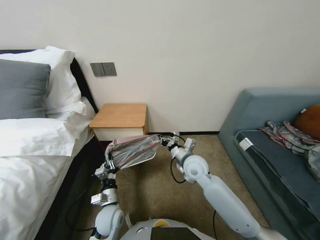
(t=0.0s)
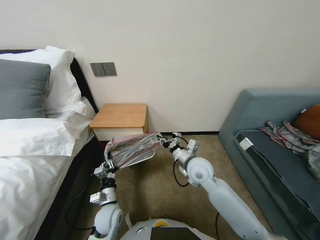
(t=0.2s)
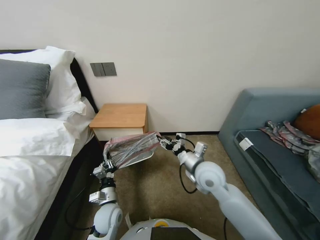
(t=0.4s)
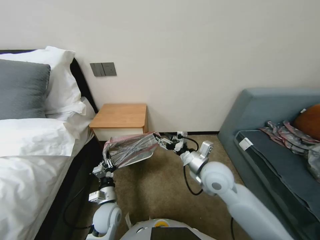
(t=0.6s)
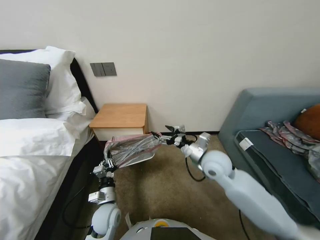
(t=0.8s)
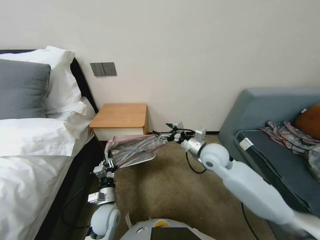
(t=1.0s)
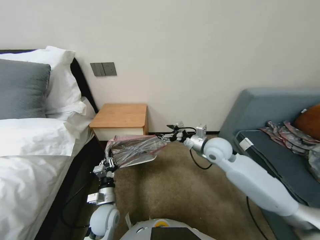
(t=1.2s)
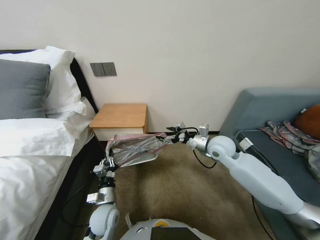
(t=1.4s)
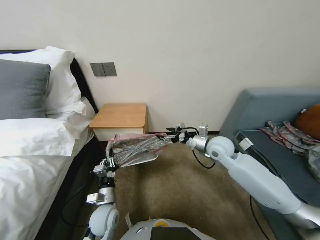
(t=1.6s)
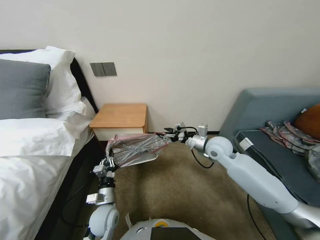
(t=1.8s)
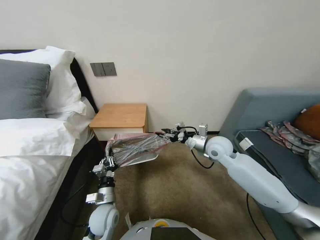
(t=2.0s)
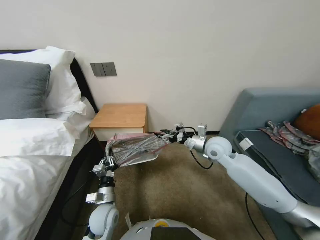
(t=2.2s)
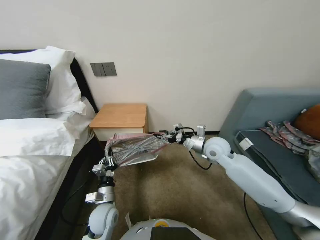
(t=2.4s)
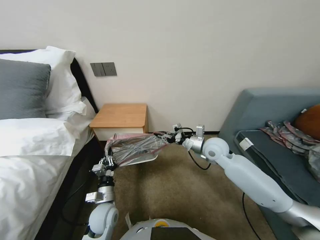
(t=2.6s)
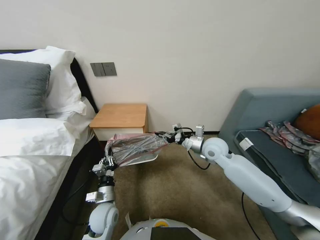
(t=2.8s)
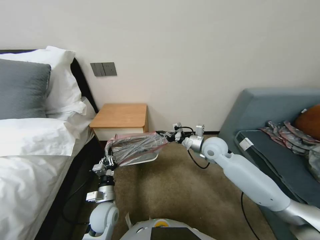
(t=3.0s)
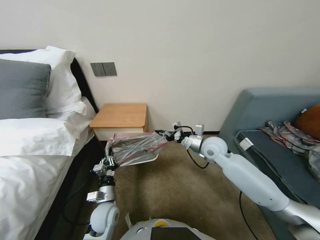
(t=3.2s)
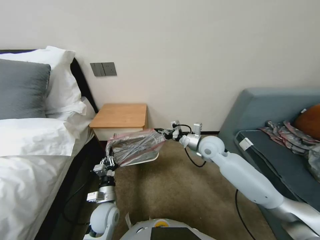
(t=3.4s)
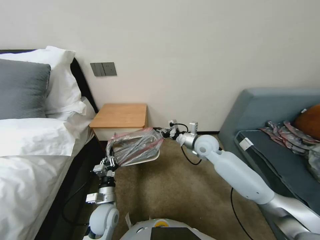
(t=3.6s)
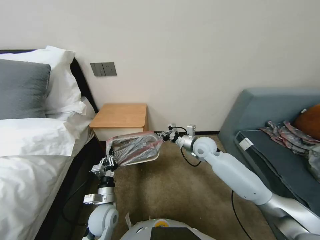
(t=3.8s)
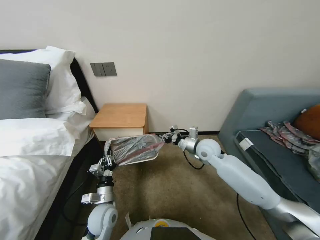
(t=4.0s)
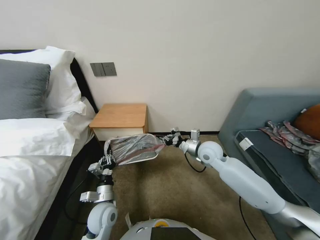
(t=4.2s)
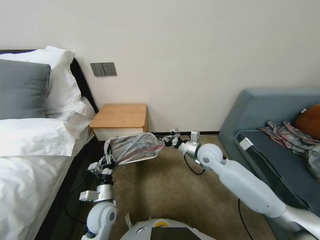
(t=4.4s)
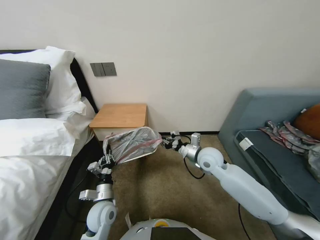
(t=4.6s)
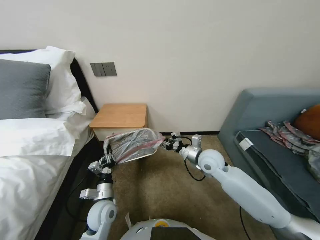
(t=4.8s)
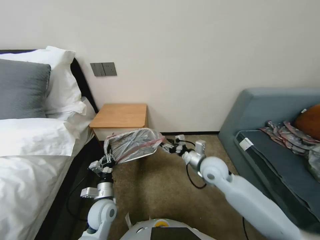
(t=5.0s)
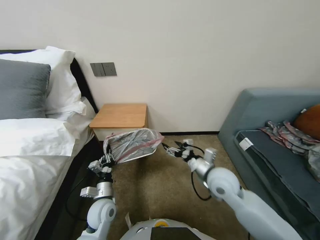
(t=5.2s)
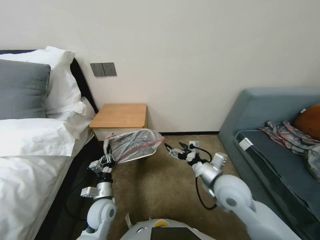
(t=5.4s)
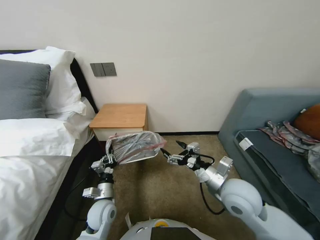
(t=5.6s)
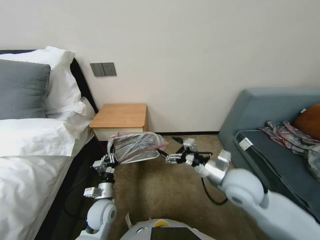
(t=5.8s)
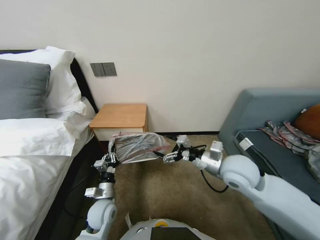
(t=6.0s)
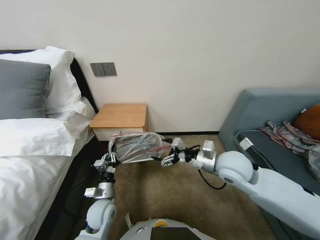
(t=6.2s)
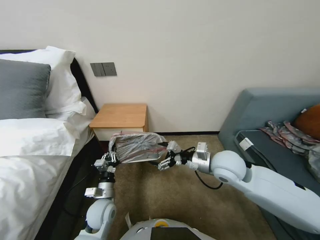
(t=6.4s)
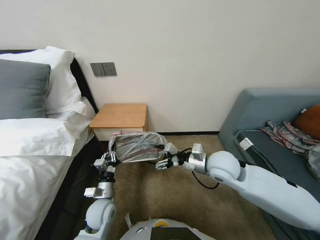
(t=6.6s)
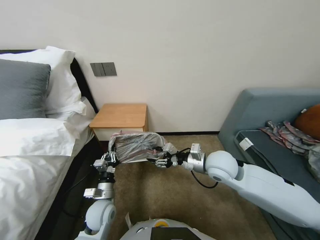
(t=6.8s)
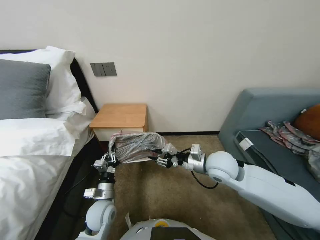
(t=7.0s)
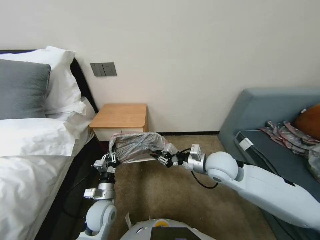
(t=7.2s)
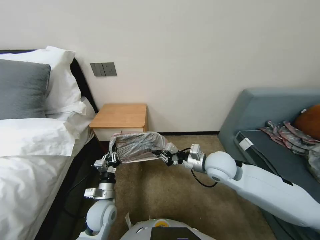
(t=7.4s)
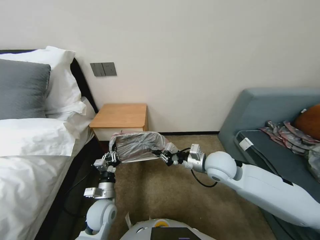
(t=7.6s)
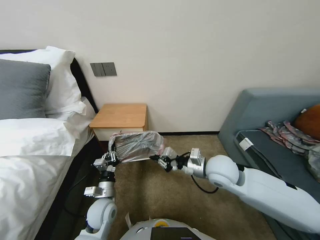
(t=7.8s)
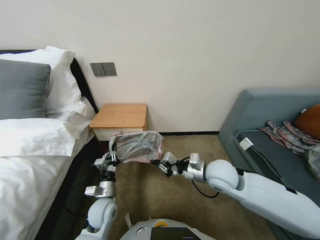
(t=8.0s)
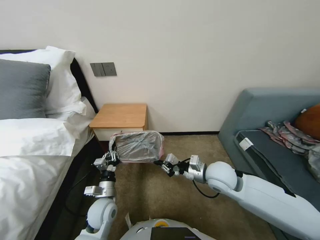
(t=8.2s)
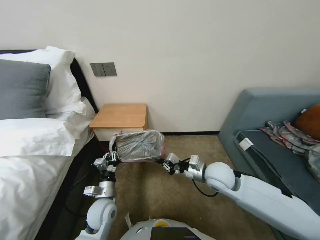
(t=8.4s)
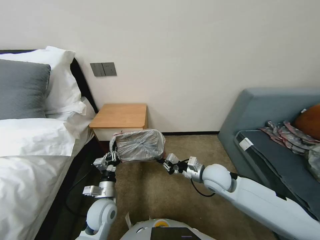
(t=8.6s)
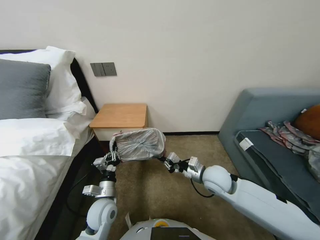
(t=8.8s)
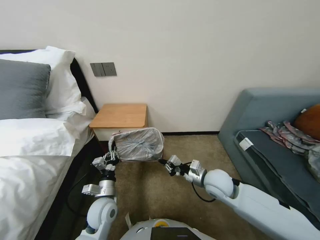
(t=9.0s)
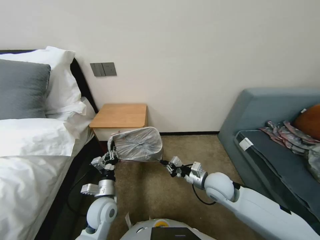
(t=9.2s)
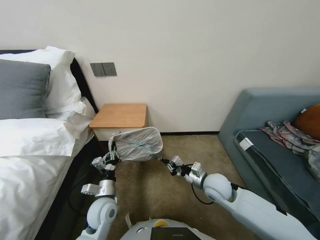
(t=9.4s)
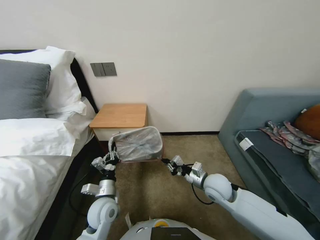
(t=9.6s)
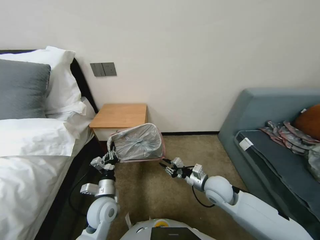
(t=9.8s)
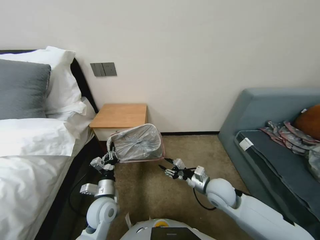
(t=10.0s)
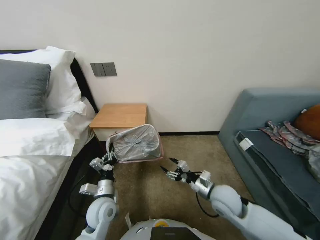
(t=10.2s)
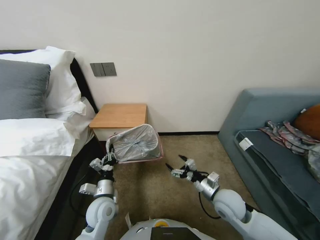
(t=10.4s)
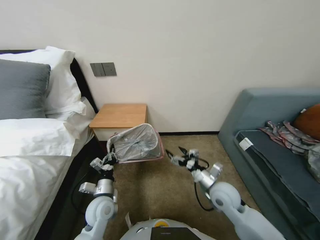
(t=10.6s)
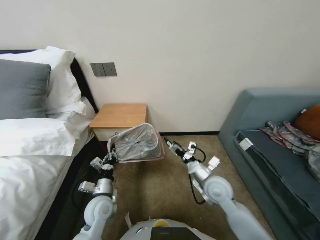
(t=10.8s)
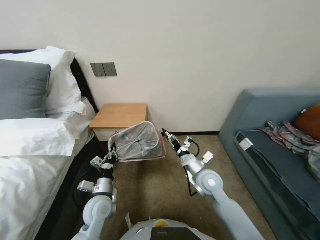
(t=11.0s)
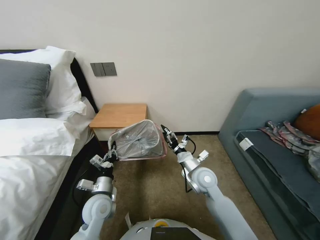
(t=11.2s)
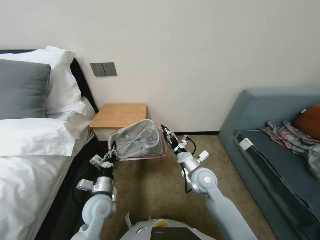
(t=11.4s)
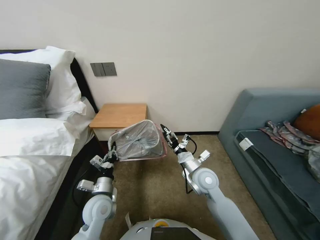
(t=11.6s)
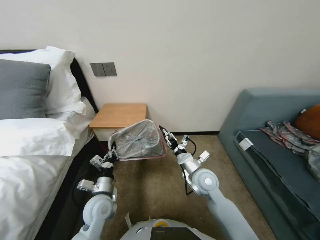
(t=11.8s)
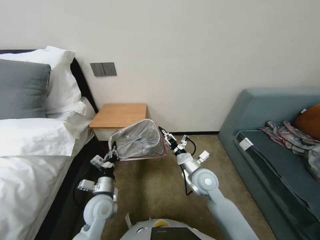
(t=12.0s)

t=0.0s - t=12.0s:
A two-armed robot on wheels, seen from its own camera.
Task of the whole recording: Pick up the garbage bag from the table and place it over the trash can.
t=0.0s - t=1.6s: The right gripper goes about 15 cm to the right, upward and forward, and opens its fingers.
t=1.6s - t=3.0s: The right gripper closes its fingers.
t=3.0s - t=4.4s: The grippers move only a little.
t=4.4s - t=6.0s: The right gripper heads backward and upward, covering approximately 15 cm, and opens its fingers.
t=6.0s - t=7.6s: The right gripper moves roughly 5 cm, and closes up.
t=7.6s - t=9.0s: The right gripper travels downward by about 5 cm.
t=9.0s - t=10.4s: The right gripper moves backward, approximately 5 cm, and opens up.
t=10.4s - t=12.0s: The right gripper travels forward and to the left by roughly 10 cm.

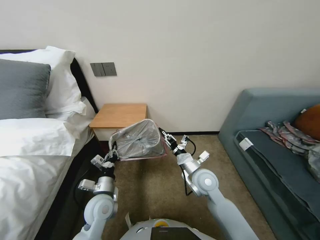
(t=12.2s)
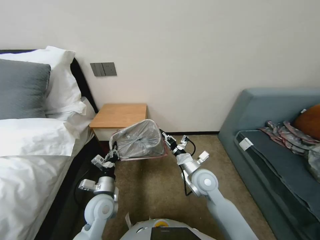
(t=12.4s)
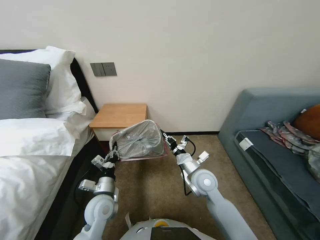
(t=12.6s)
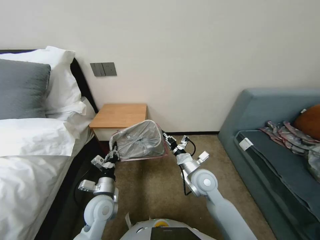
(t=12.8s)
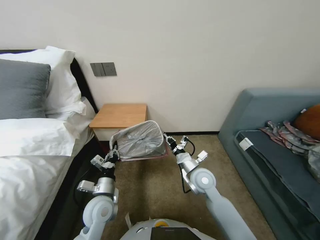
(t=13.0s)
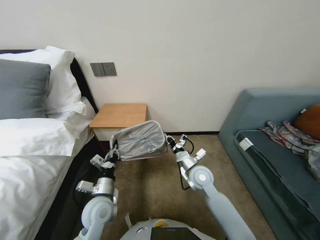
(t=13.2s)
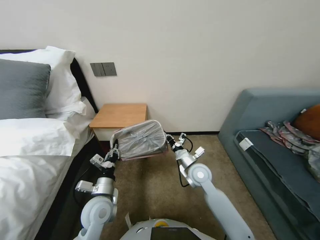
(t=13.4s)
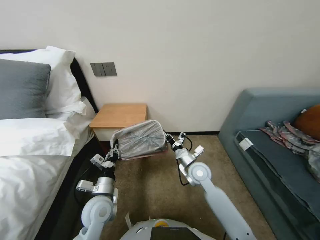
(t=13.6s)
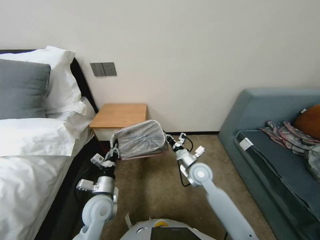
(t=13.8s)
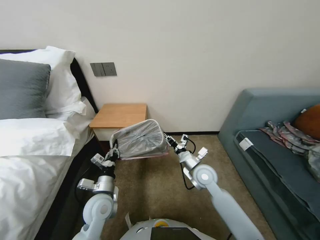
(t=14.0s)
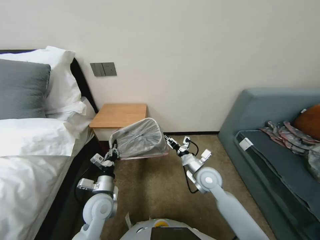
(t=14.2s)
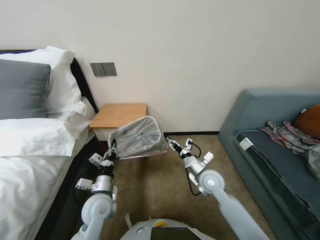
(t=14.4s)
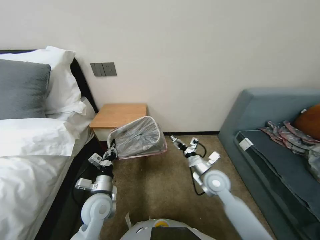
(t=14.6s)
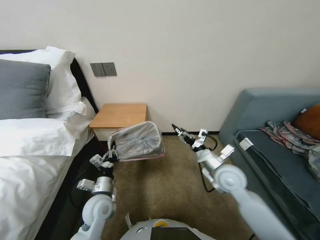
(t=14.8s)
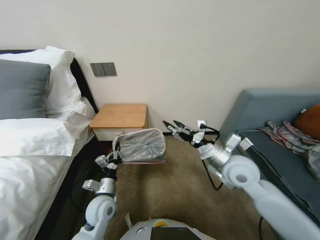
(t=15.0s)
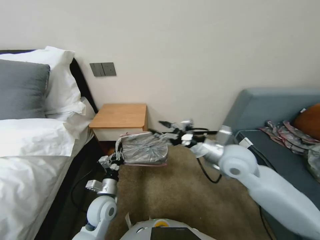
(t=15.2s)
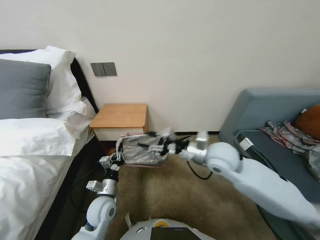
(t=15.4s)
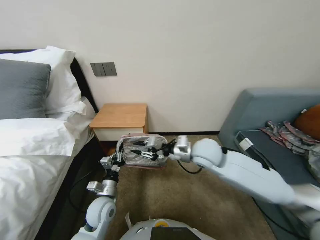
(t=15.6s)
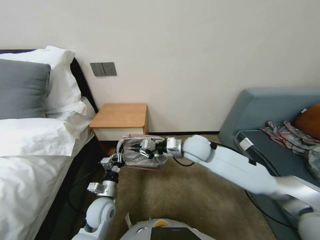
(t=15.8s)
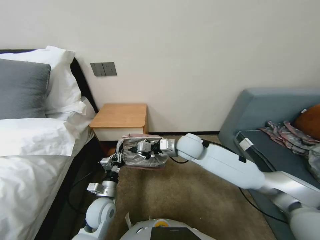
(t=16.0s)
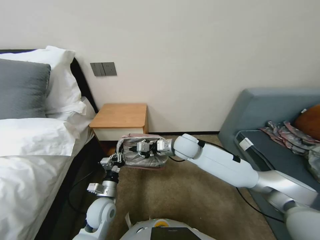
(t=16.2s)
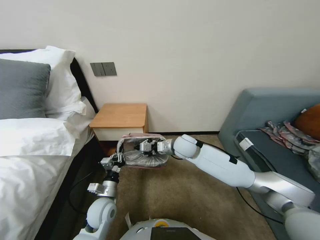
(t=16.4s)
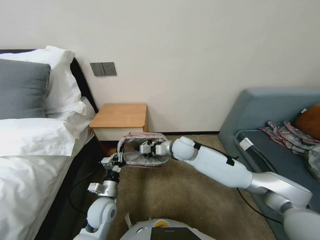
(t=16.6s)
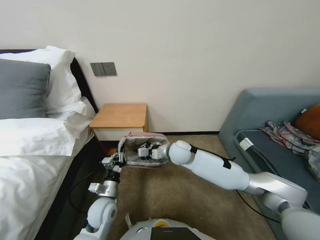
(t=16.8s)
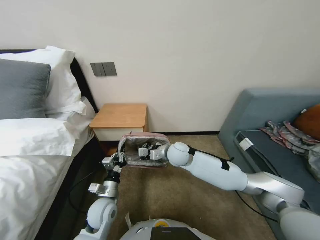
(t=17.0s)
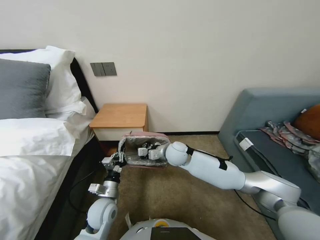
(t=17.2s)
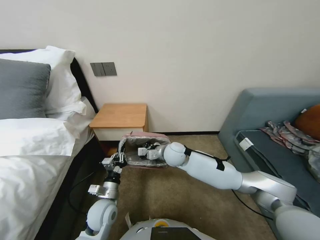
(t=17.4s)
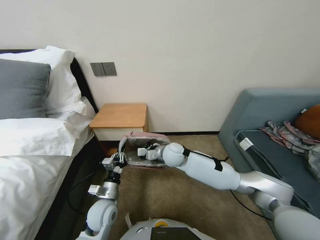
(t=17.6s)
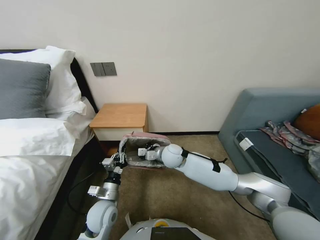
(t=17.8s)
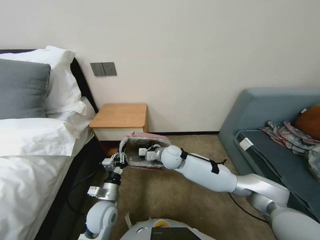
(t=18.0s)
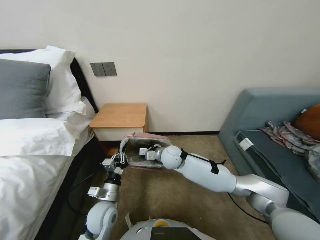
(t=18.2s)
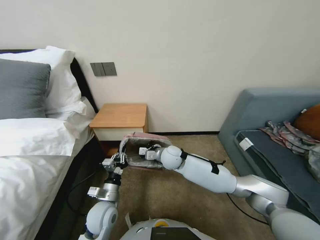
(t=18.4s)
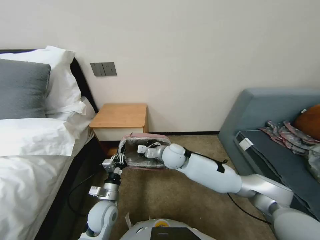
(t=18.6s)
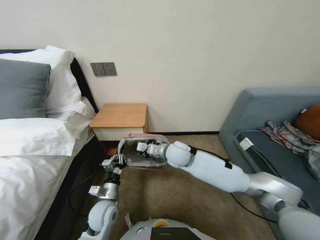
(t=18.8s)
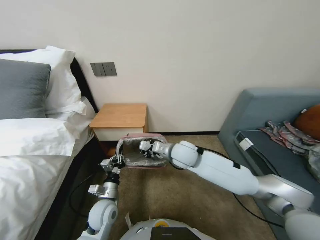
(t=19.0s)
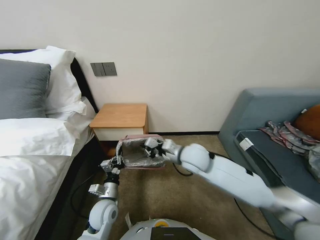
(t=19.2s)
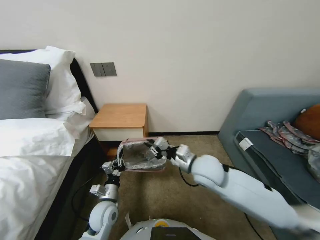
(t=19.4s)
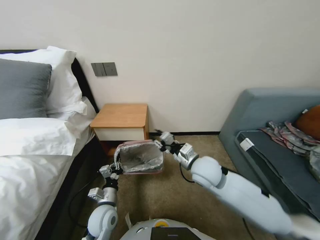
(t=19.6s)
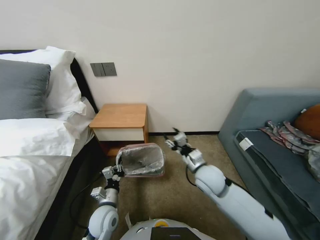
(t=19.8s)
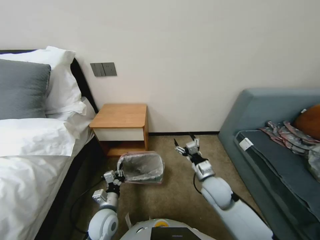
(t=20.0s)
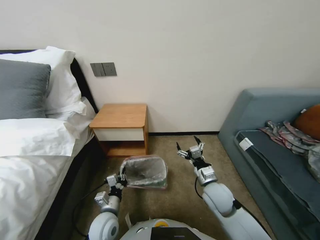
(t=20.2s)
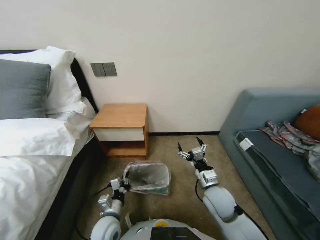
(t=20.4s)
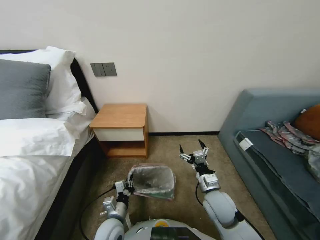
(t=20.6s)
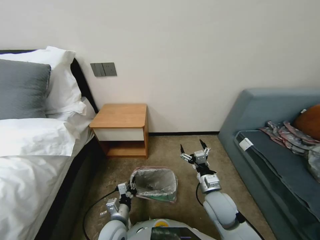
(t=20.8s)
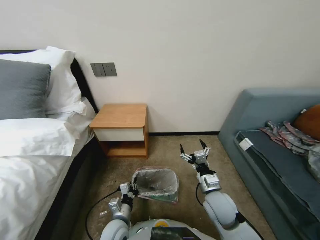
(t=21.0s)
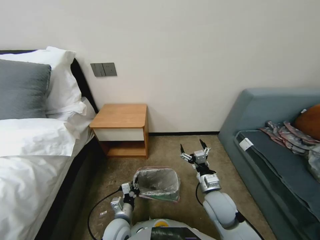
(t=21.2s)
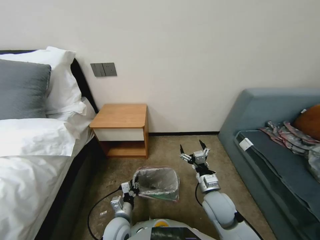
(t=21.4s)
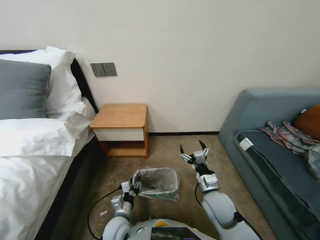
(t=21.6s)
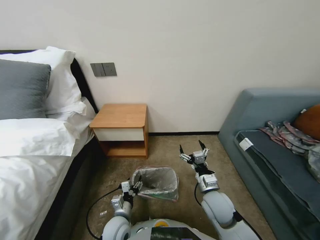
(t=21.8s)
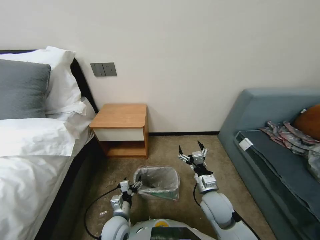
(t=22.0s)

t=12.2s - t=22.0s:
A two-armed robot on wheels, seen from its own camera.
Task of the whole recording: Pick up the garbage bag from the table and place it over the trash can.
t=12.2s - t=13.6s: The right gripper closes its fingers.
t=13.6s - t=15.0s: The right gripper moves upward and to the right, roughly 10 cm, and opens its fingers.
t=15.0s - t=16.4s: The right gripper heads to the left and forward, covering roughly 20 cm, and closes.
t=16.4s - t=17.8s: The right gripper moves some 5 cm.
t=17.8s - t=19.2s: The right gripper shifts roughly 5 cm upward.
t=19.2s - t=20.6s: The left gripper travels backward by roughly 5 cm; the right gripper is displaced backward, downward and to the right by some 20 cm, and opens its fingers.
t=20.6s - t=22.0s: The left gripper opens up.
